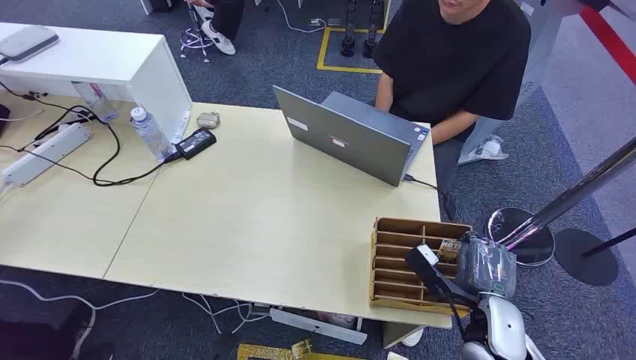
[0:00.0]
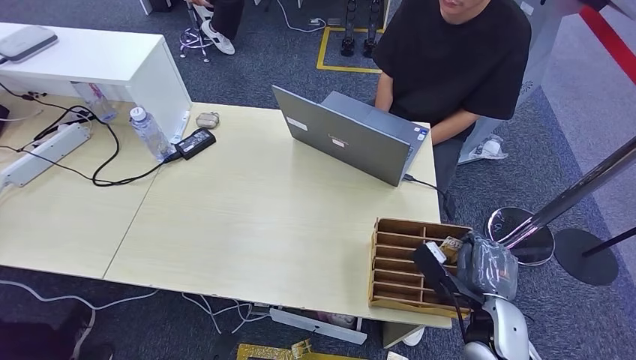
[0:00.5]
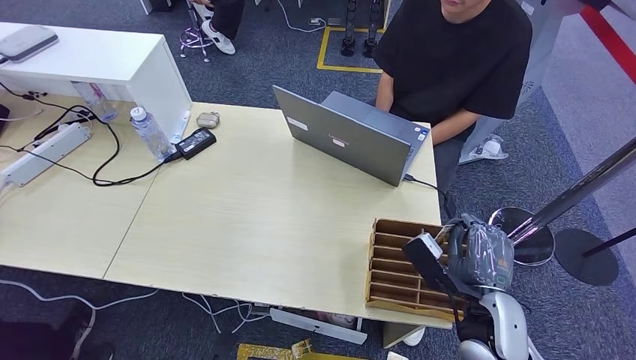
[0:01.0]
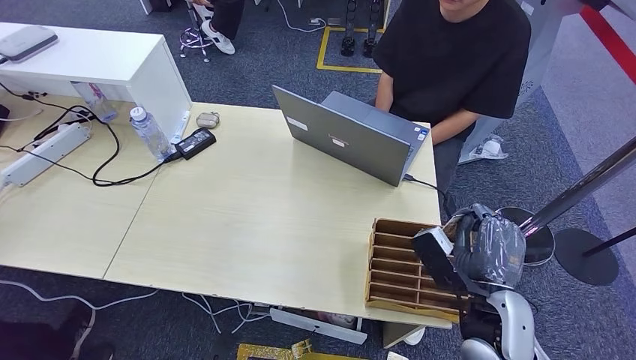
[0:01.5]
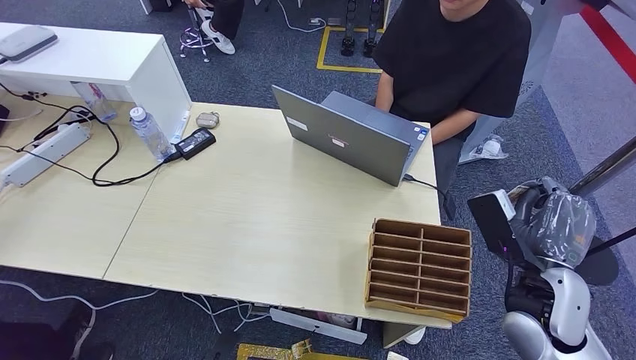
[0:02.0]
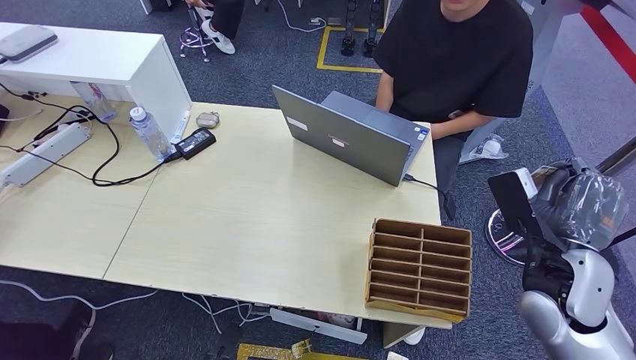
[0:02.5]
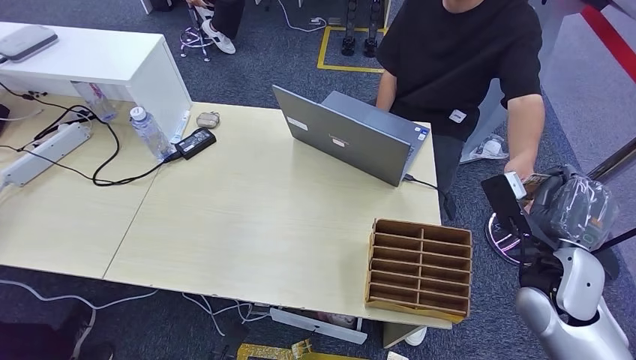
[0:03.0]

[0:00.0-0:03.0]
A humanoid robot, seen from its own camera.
Step, 0.0 to 1.5 s: Pick up the key card from the card box.
Step, 2.0 to 3.0 s: Hand the key card to the target.
1.5 to 3.0 s: The right hand goes some 10 cm to the right and forward.

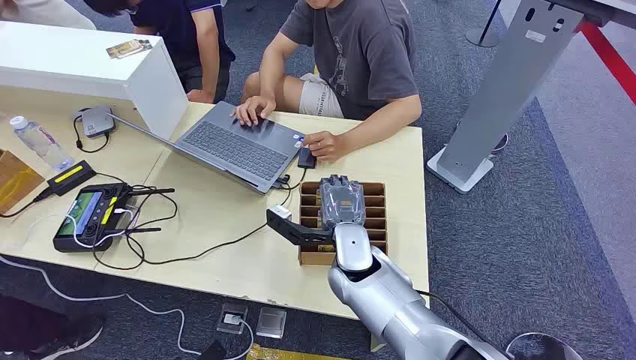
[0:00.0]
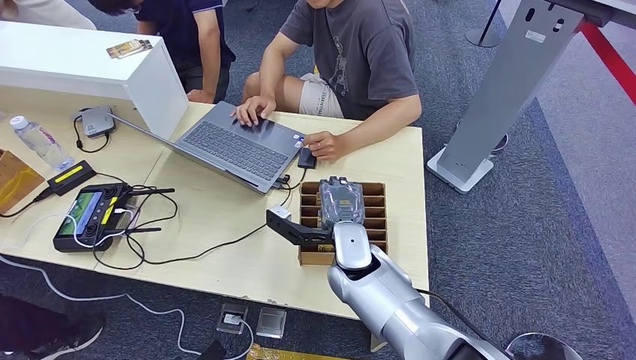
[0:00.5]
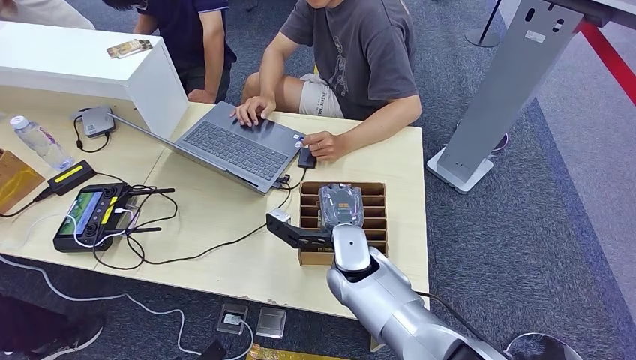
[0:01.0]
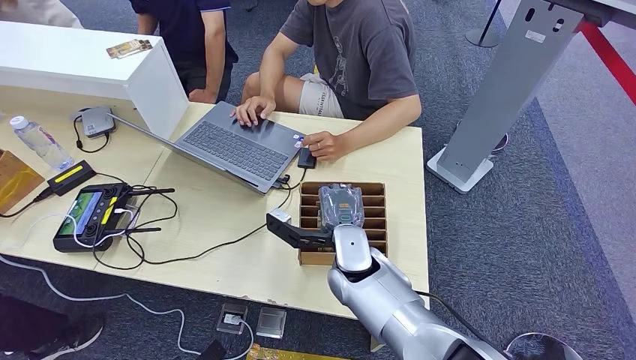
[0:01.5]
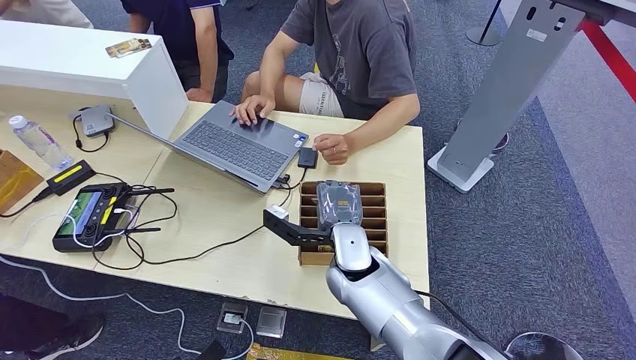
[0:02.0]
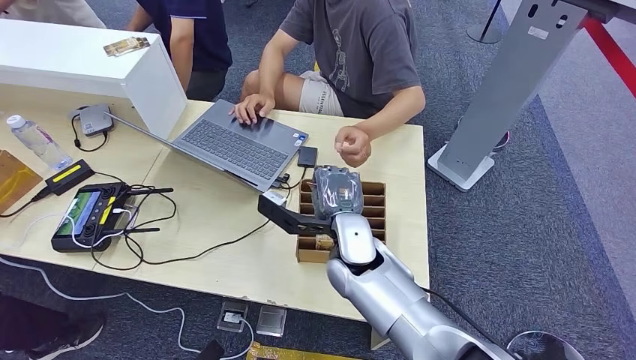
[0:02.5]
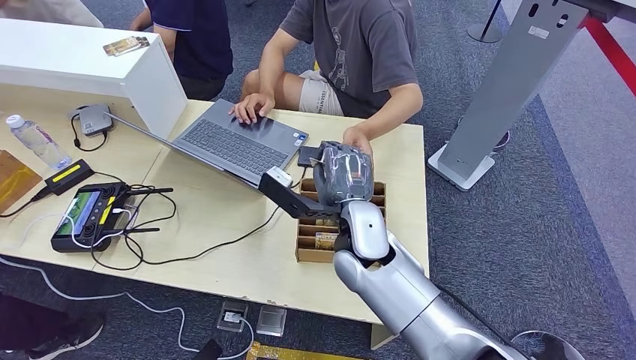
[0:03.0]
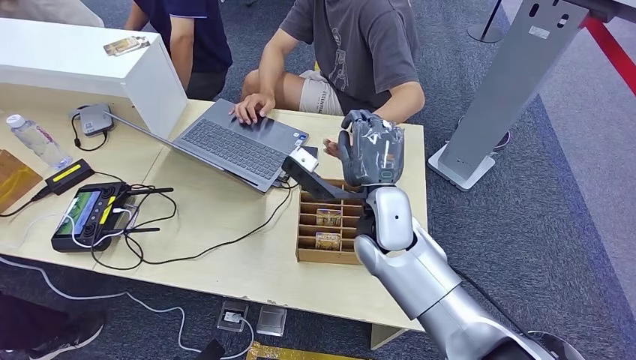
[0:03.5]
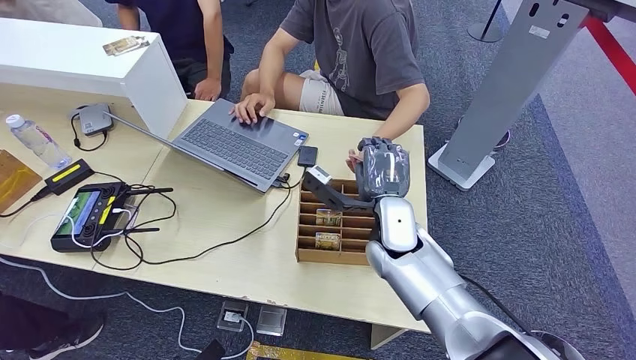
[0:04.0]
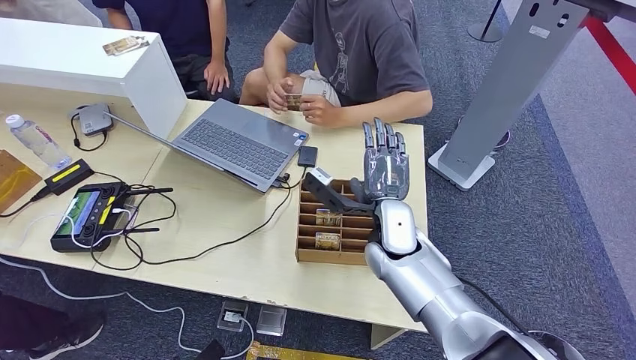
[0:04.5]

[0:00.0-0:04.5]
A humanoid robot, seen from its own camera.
Step, 0.0 to 2.5 s: Pick up the key card from the card box.
Step, 3.5 to 4.5 s: Hand the key card to the target.

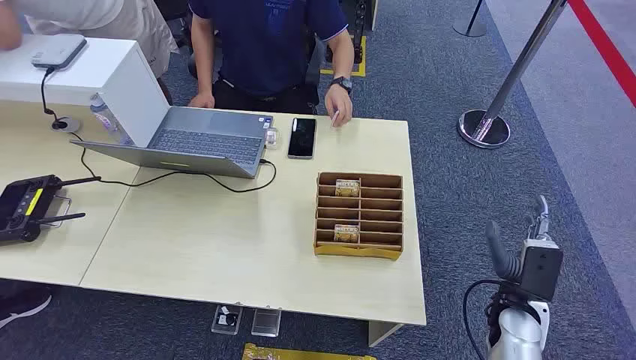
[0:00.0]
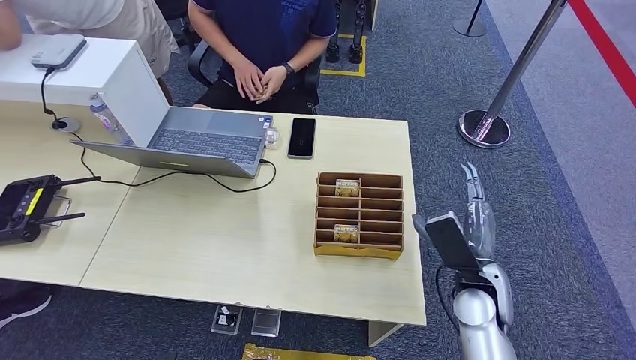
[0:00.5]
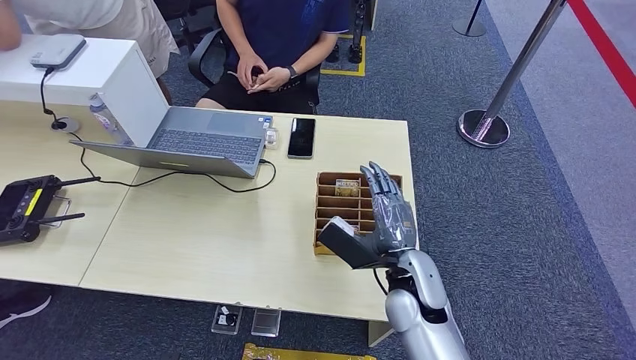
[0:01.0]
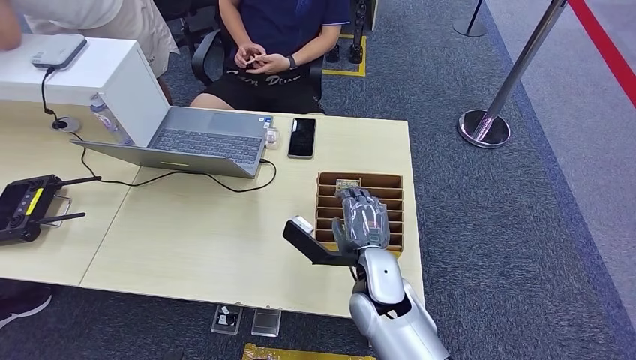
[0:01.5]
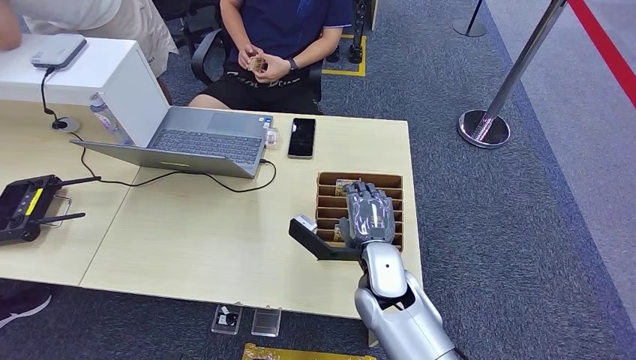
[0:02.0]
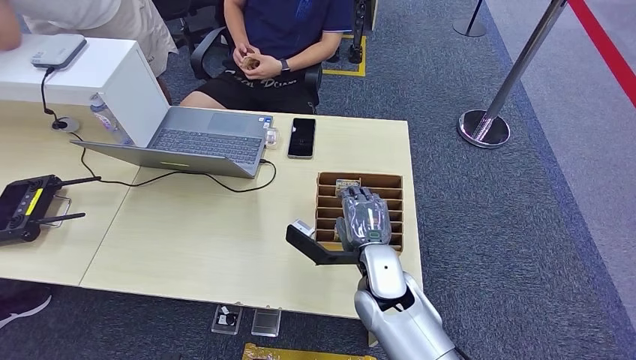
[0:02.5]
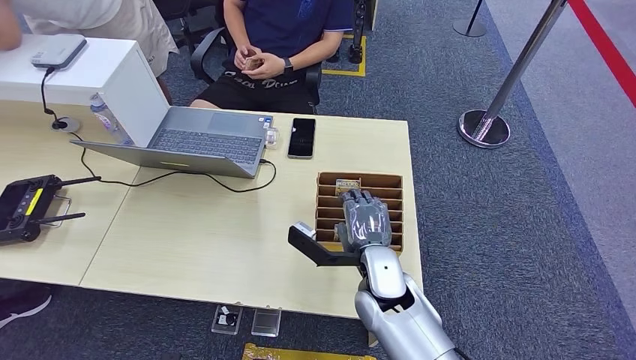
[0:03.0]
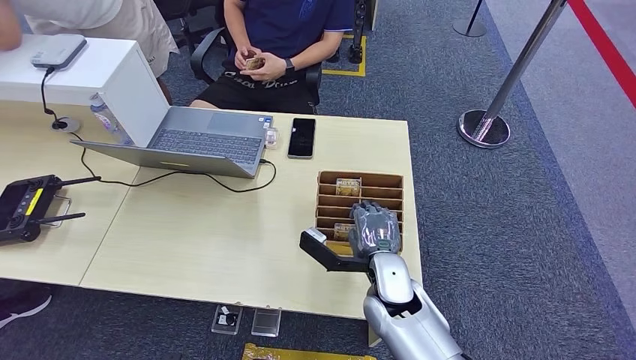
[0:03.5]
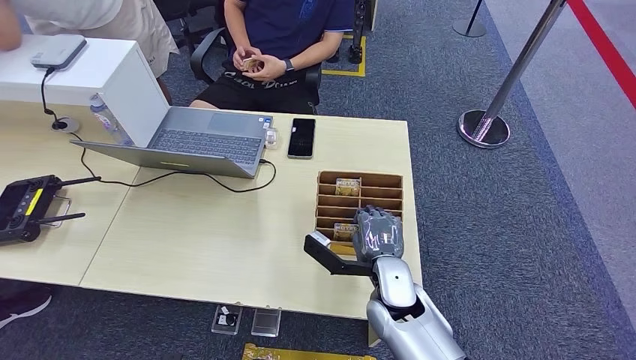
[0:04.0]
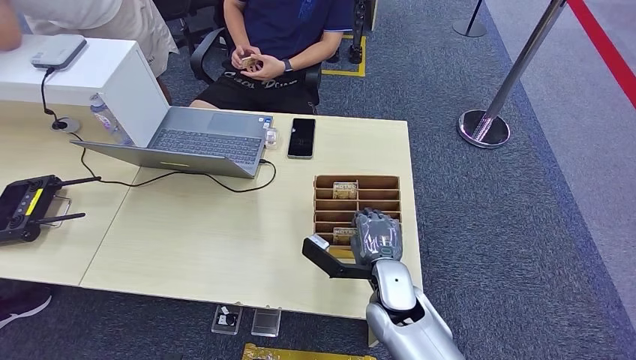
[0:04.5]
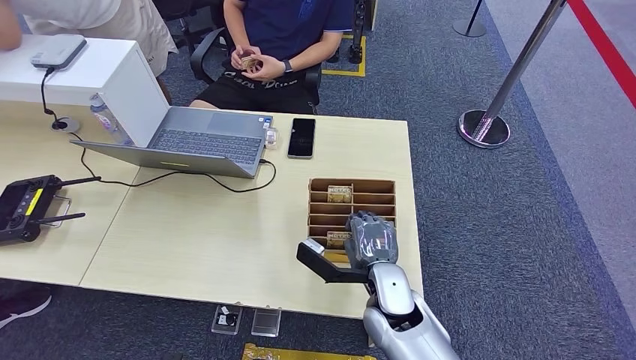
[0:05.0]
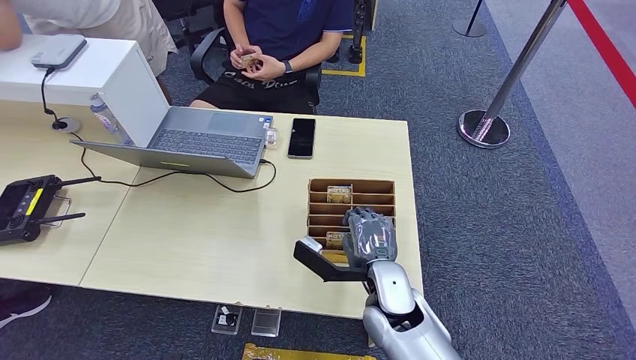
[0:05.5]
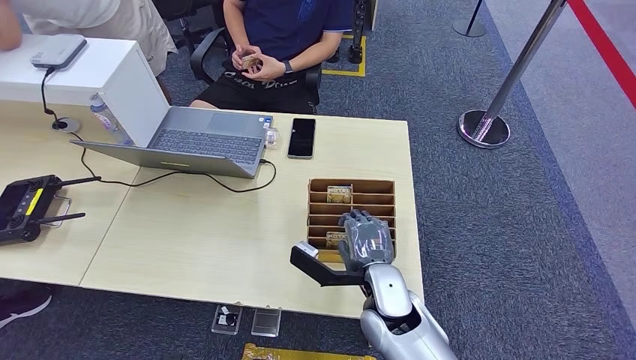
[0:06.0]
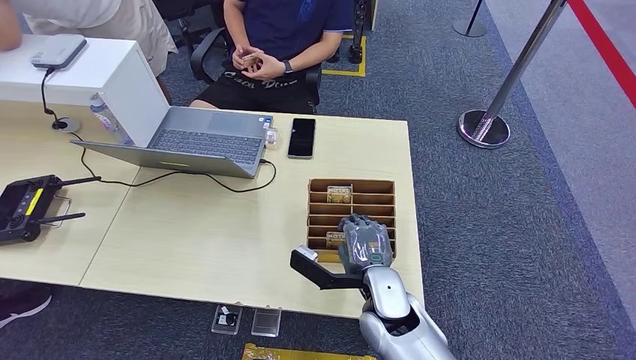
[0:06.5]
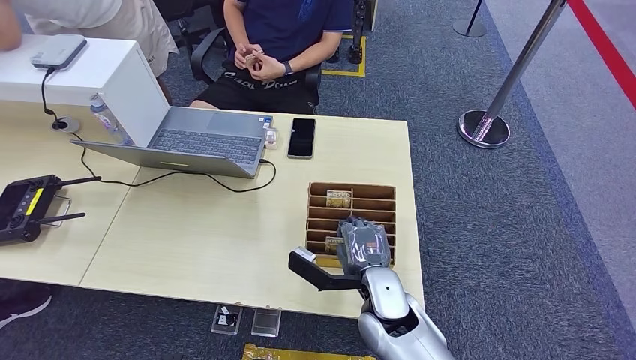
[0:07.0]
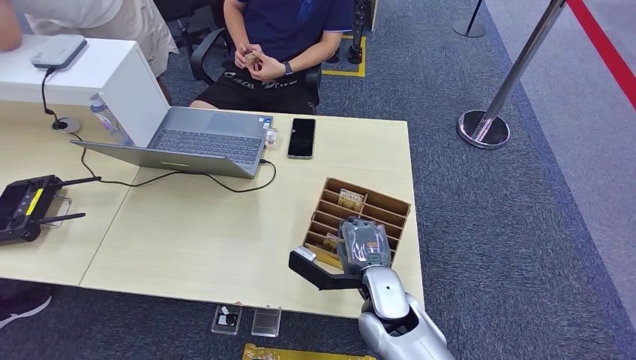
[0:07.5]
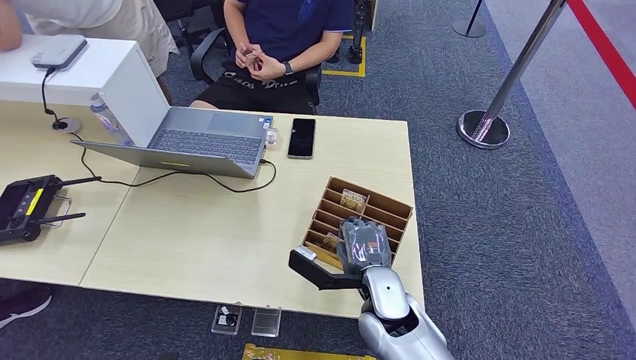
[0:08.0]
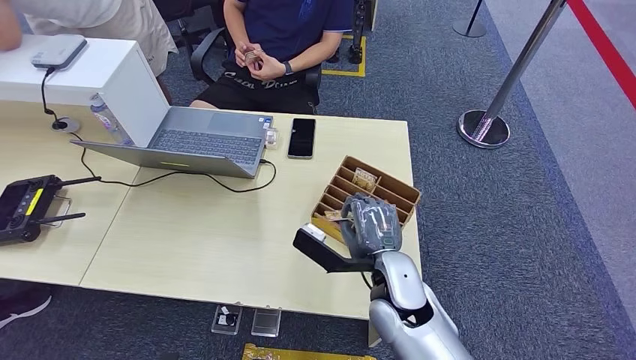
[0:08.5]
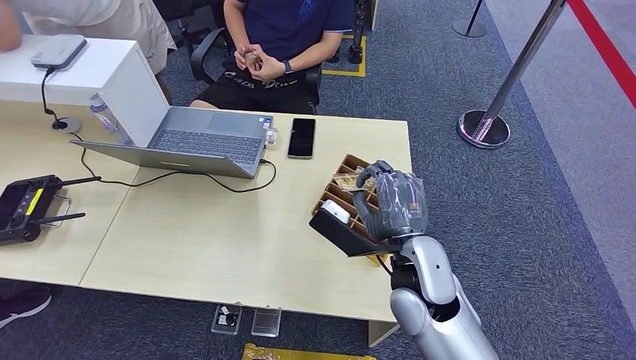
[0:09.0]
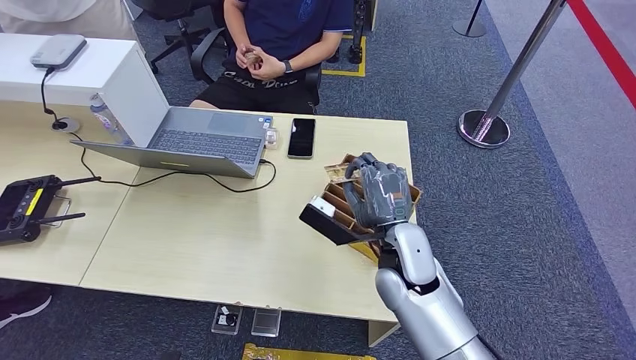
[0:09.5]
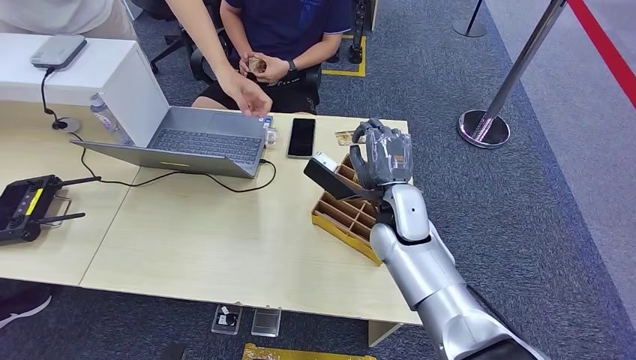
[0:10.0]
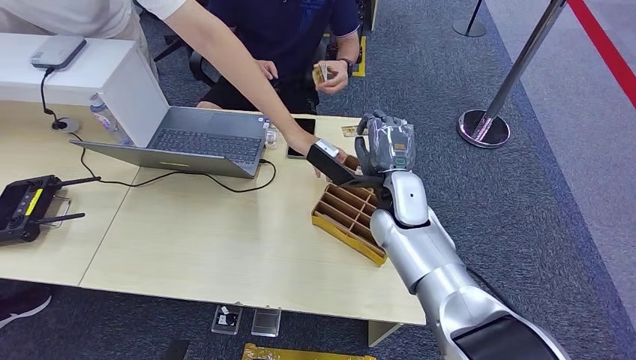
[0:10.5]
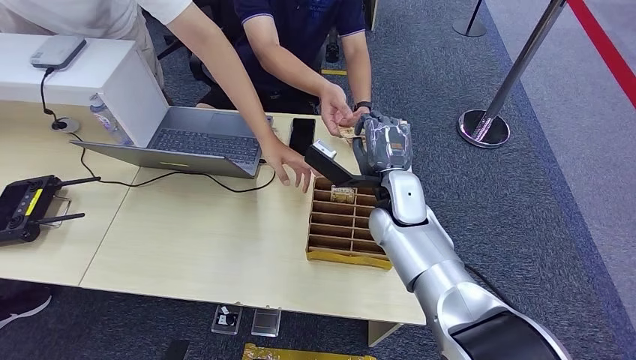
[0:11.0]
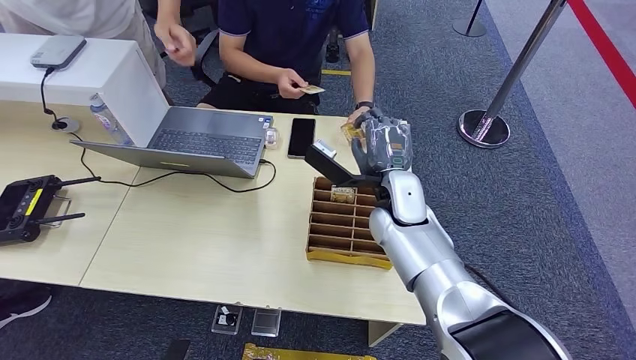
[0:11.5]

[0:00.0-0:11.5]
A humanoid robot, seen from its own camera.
Step, 0.0 to 9.5 s: Pick up the key card from the card box.
Step, 10.0 to 11.5 s: Hand the key card to the target.
2.0 to 6.0 s: There are only small adjustments of the hands.
6.0 to 7.5 s: Neither hand changes place.
7.5 to 9.5 s: The right hand heads upward and forward, covering approximately 10 cm.
9.5 to 11.5 s: The right hand goes approximately 10 cm forward.

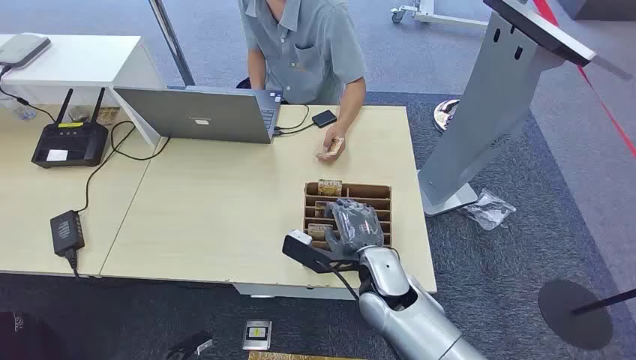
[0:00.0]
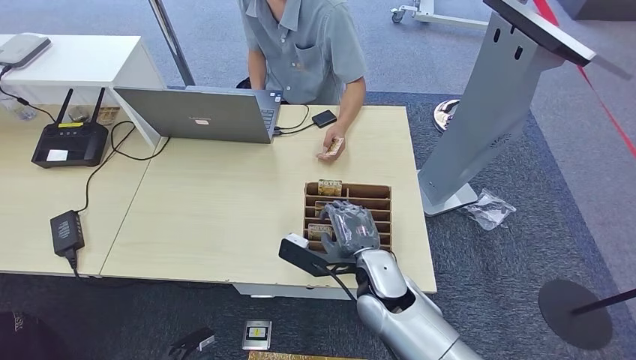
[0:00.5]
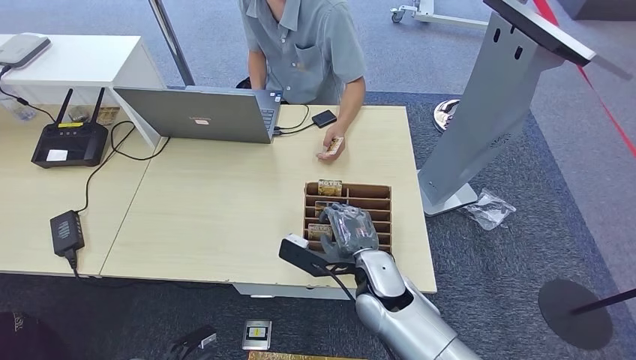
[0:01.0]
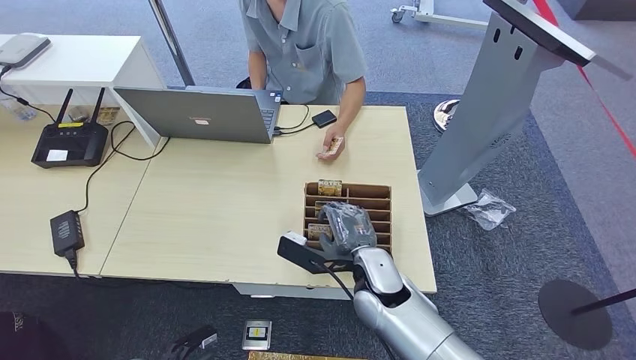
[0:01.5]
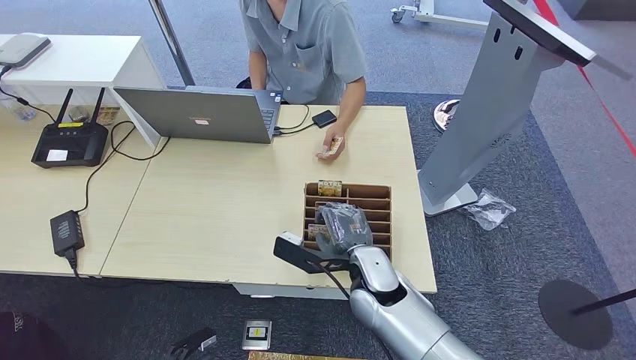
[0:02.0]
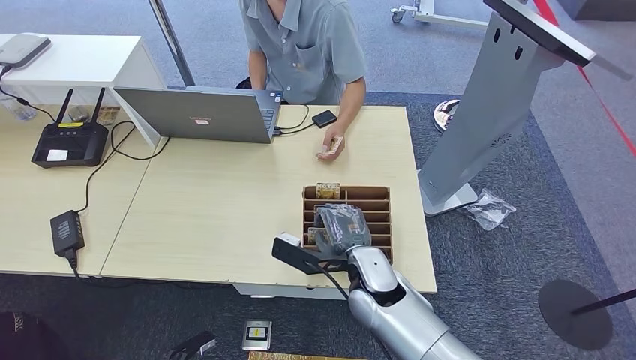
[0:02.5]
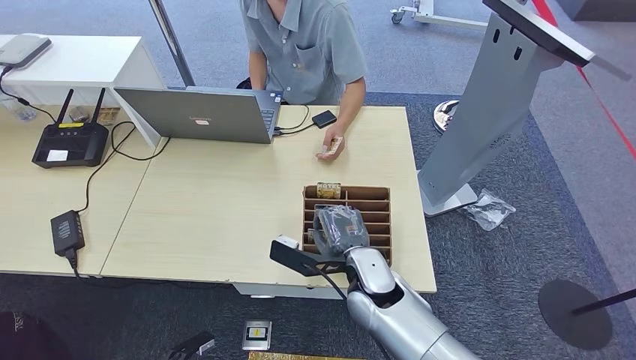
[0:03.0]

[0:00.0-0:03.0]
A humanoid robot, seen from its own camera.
1.5 to 3.0 s: The two hands keep their place.
